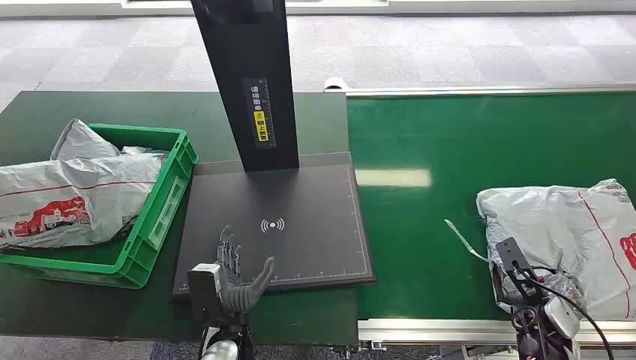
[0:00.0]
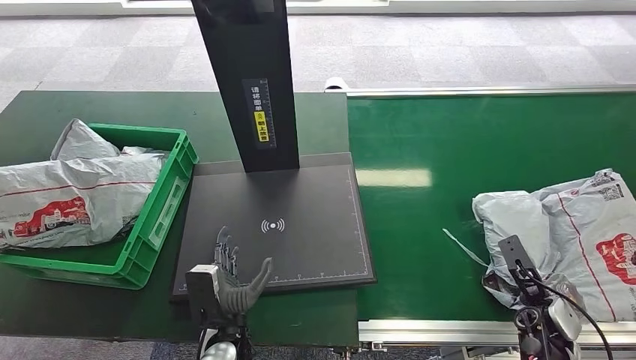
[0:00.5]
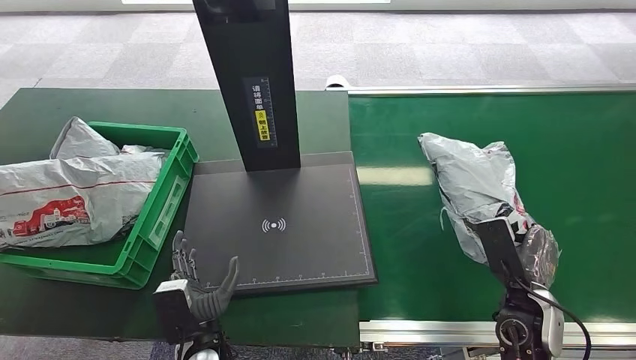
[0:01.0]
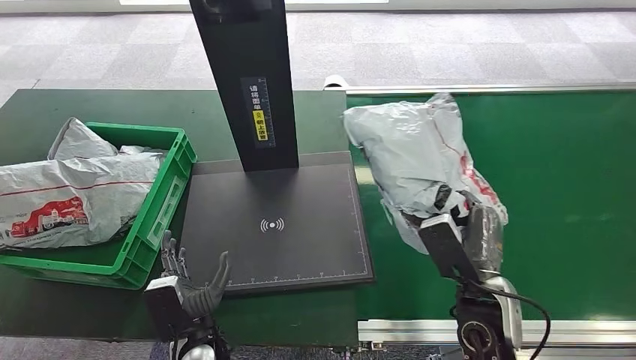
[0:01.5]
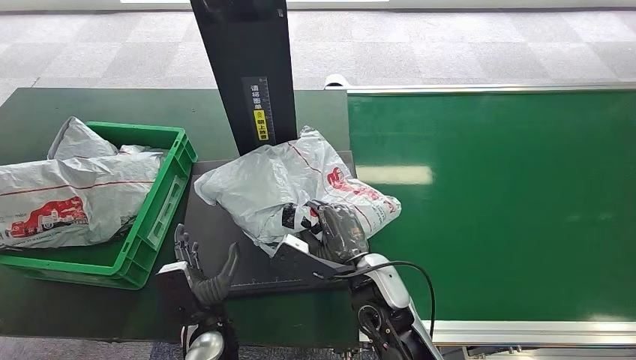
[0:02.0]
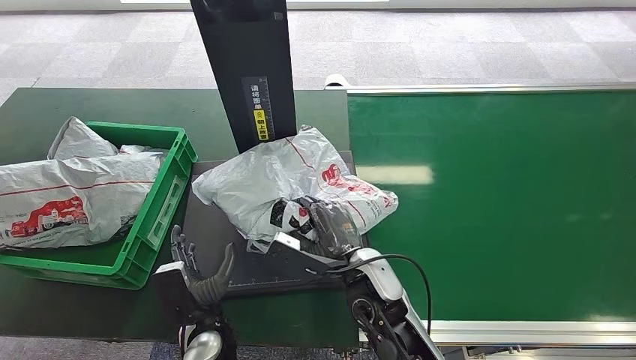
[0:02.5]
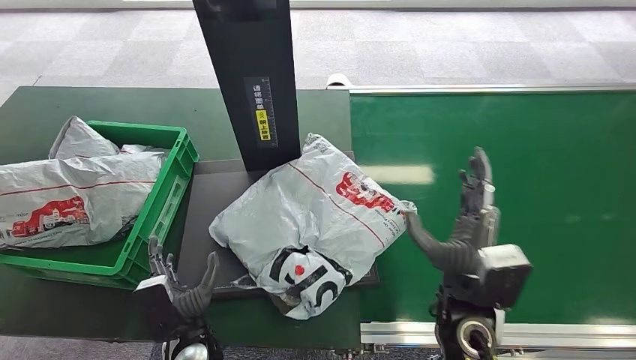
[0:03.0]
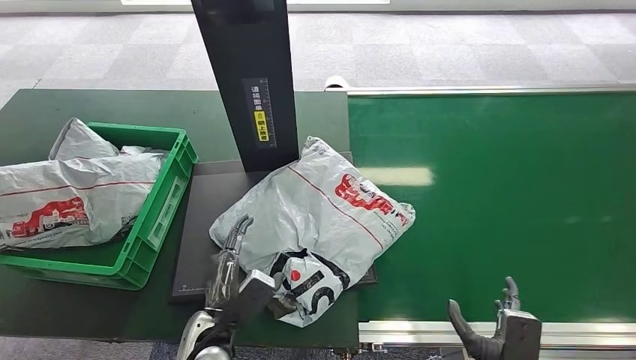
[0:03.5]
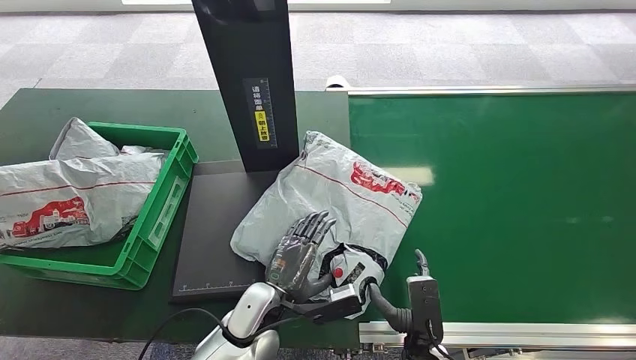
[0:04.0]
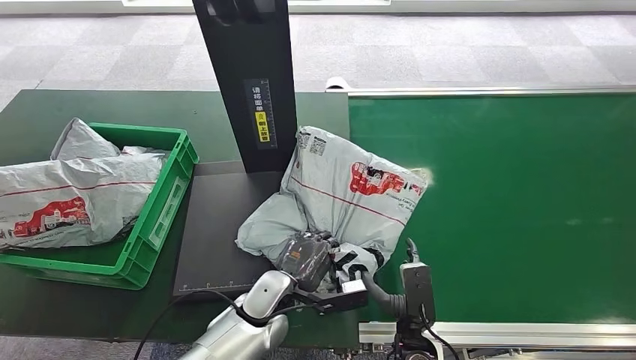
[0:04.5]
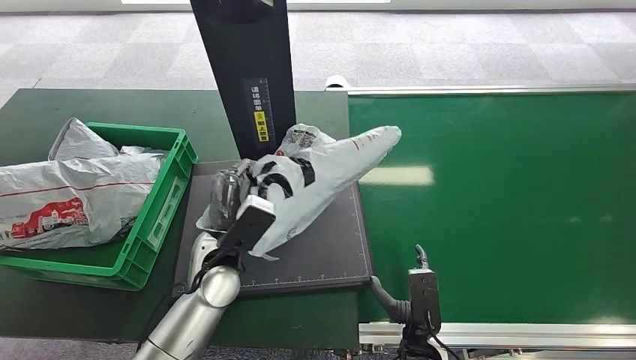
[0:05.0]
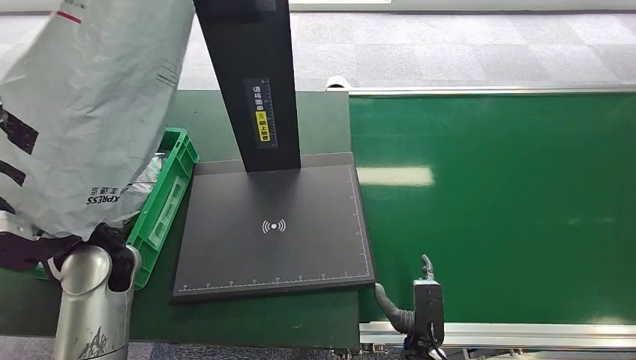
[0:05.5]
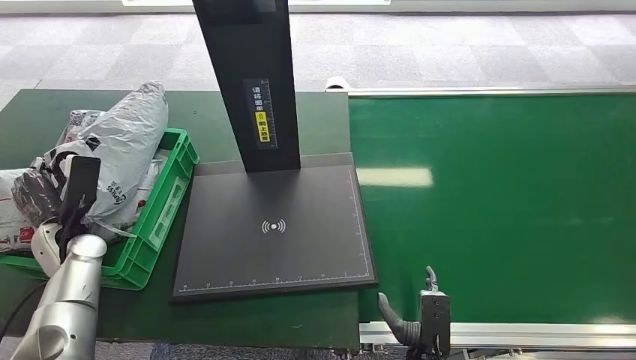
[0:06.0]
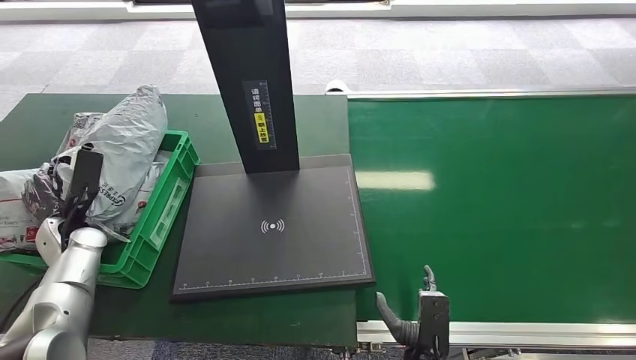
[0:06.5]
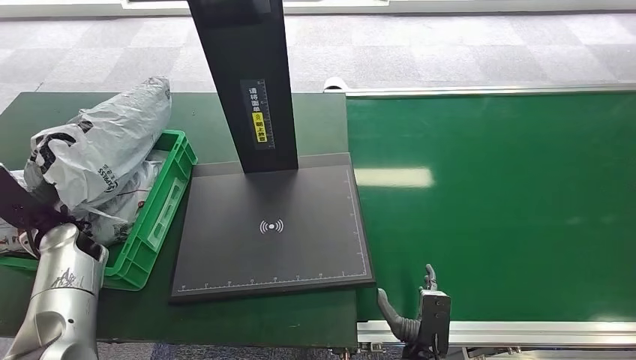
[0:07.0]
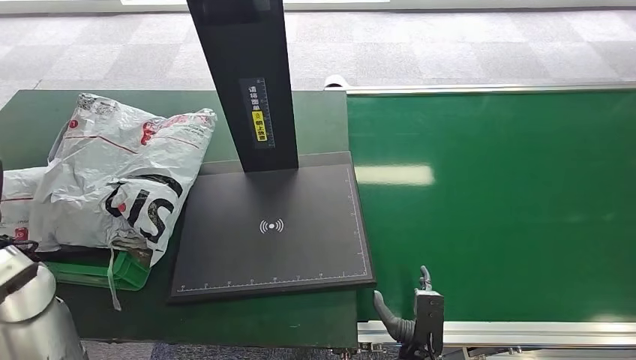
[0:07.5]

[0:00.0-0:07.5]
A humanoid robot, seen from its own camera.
Step, 0:00.0 to 0:01.5: Pick up the package from the conveyor belt.
Step, 0:02.0 to 0:03.0: Place the package onto the inbound machine.
Step, 0:03.5 to 0:05.5: Pick up the package from the inbound machine.
Step, 0:06.0 to 0:07.5: Place the package into the parcel locker.
0:02.0 to 0:04.0: The left hand changes place by some 5 cm; the right hand goes roughly 15 cm backward, downward and to the right.

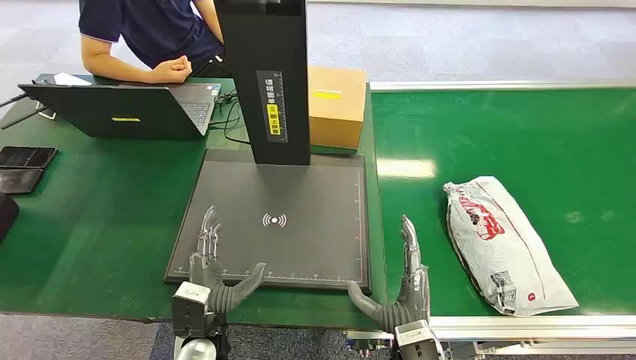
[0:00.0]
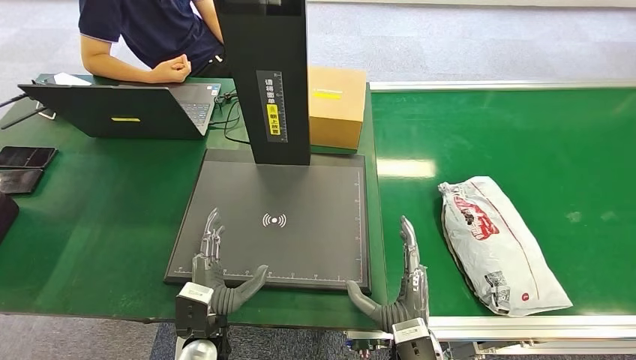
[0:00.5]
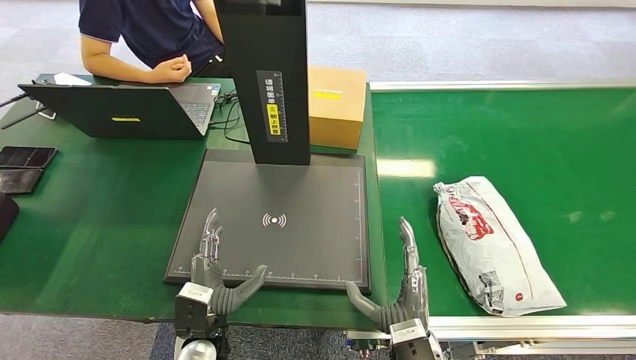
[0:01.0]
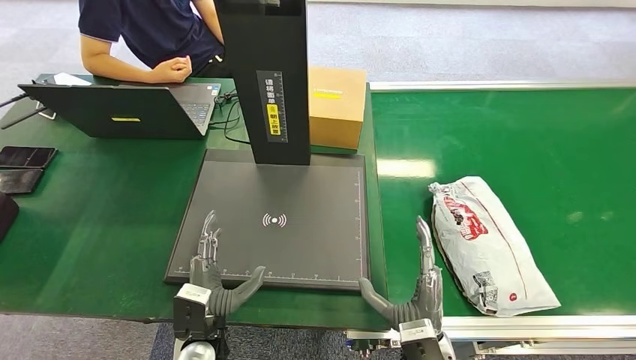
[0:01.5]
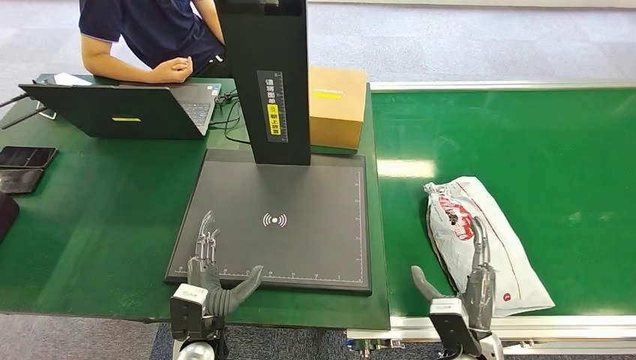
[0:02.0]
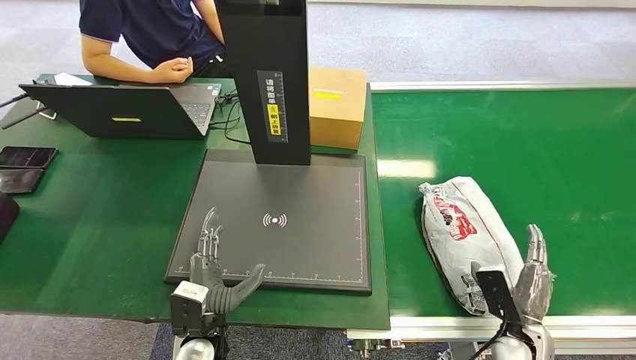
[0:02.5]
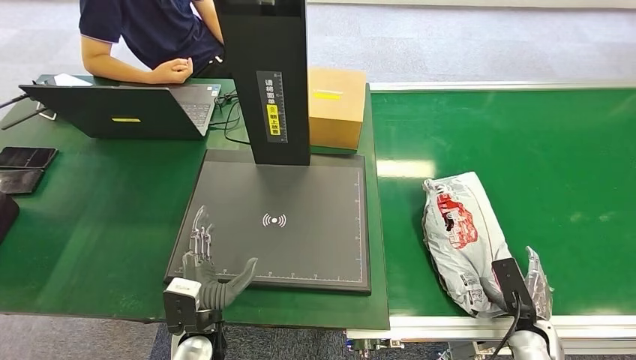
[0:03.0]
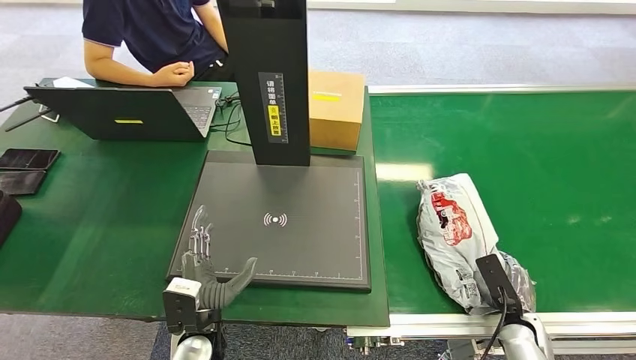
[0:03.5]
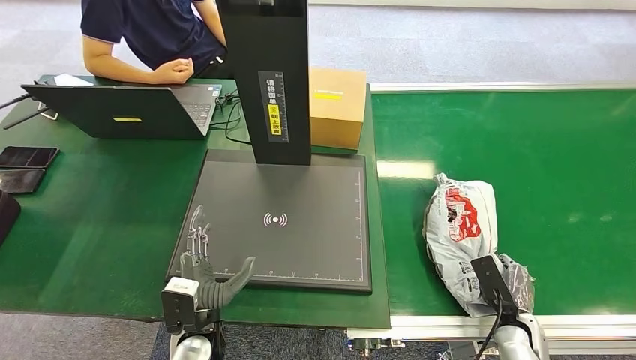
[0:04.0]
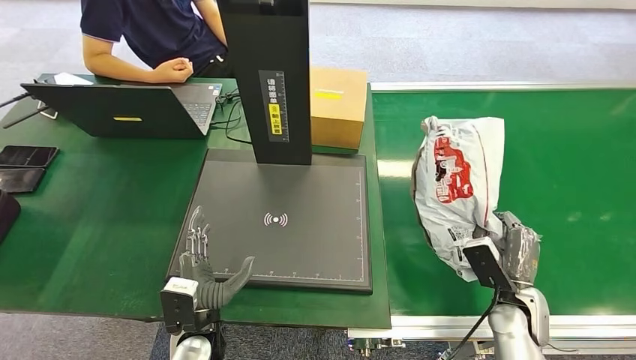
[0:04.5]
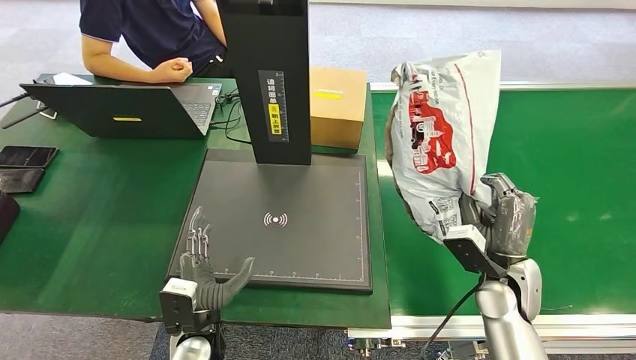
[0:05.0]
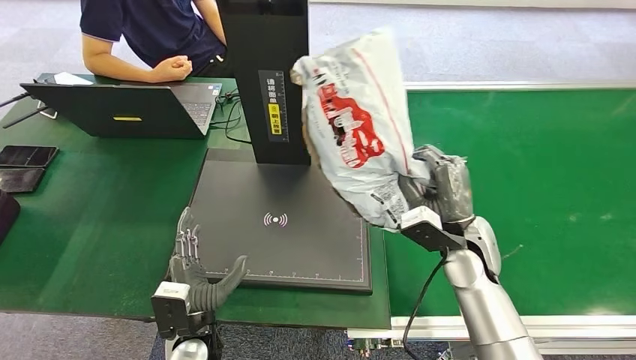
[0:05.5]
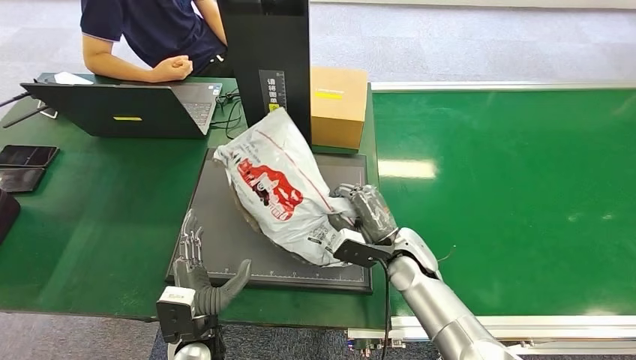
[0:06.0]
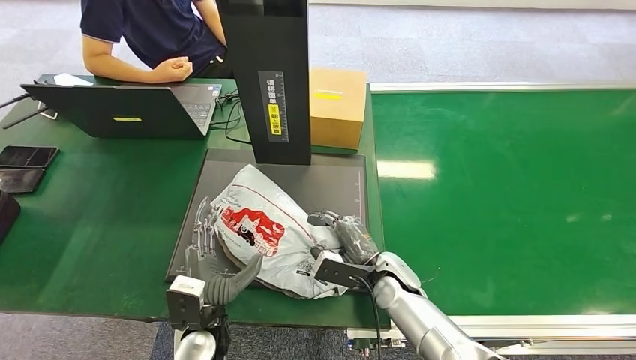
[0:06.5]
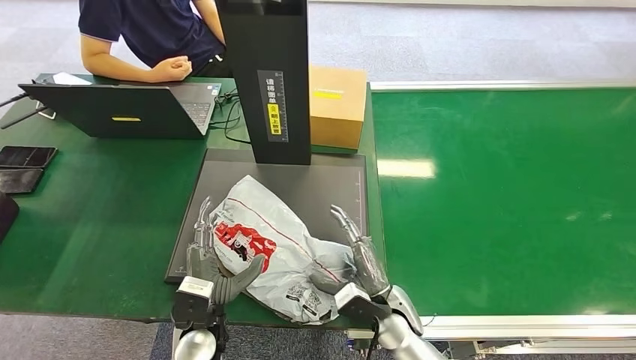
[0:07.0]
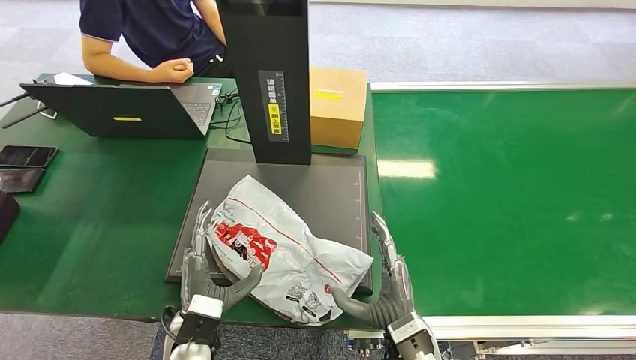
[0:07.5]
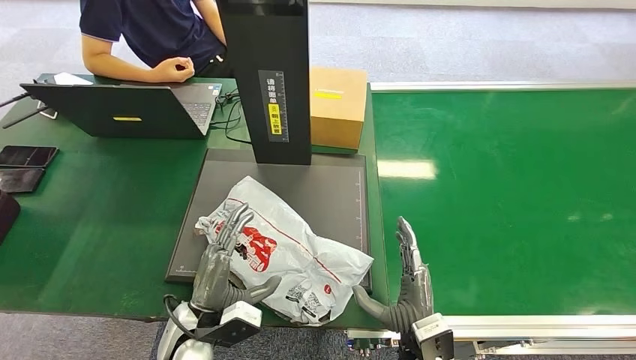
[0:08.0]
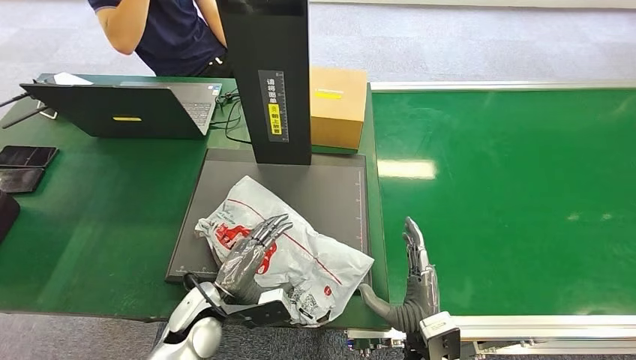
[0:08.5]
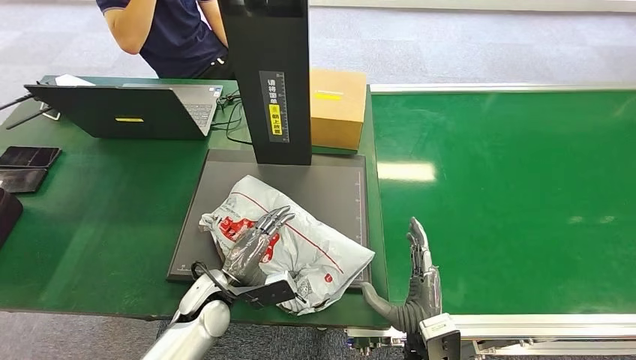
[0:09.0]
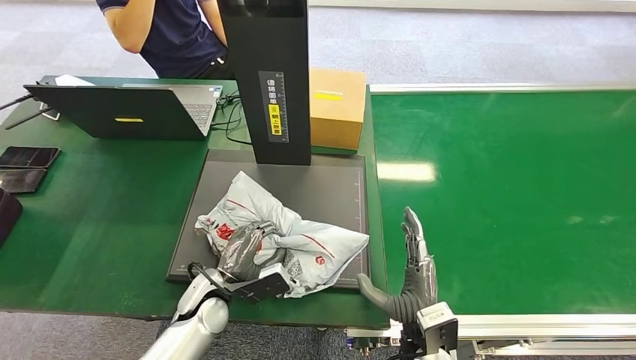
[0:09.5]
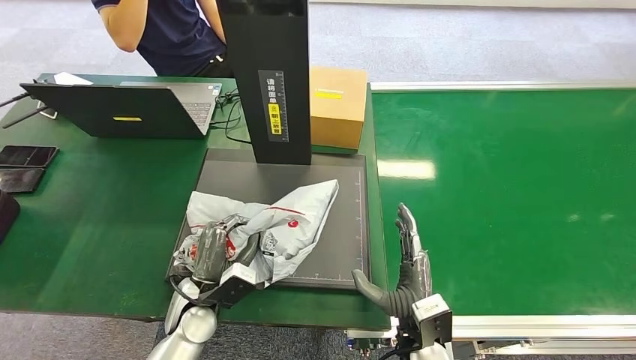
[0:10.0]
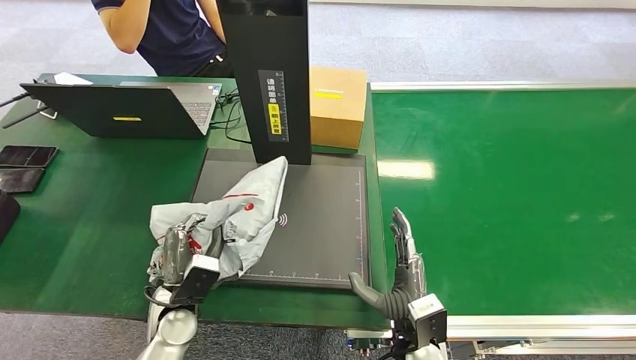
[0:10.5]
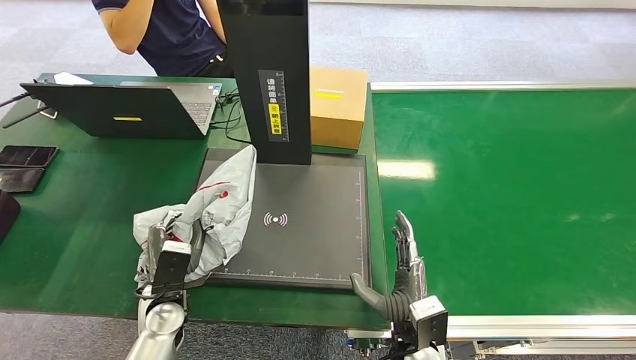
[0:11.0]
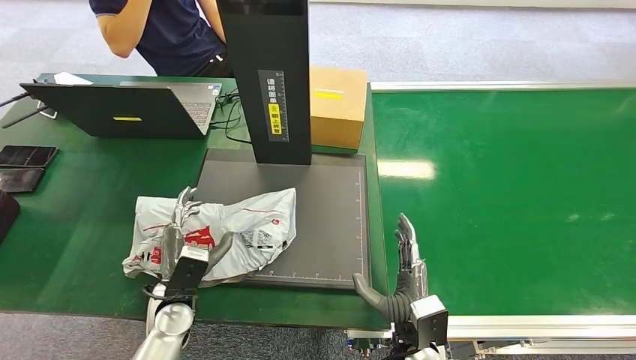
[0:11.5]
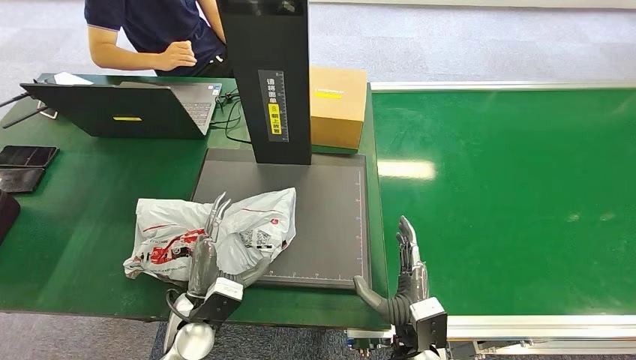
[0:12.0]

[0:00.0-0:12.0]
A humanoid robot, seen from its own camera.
Step, 0:00.0 to 0:04.5: Pick up the package from the conveyor belt.
Step, 0:05.0 to 0:07.5: Place the package onto the inbound machine.
Step, 0:08.0 to 0:10.0: Pick up the package from the inbound machine.
0:02.0 to 0:04.0: The right hand goes about 15 cm to the right and downward.
0:06.0 to 0:08.0: The right hand heads backward, covering approximately 15 cm.
0:08.0 to 0:10.0: The left hand heads forward, covering some 5 cm.
